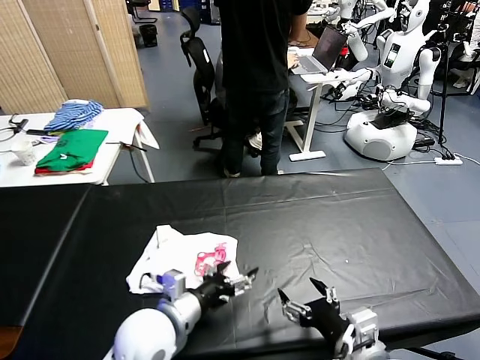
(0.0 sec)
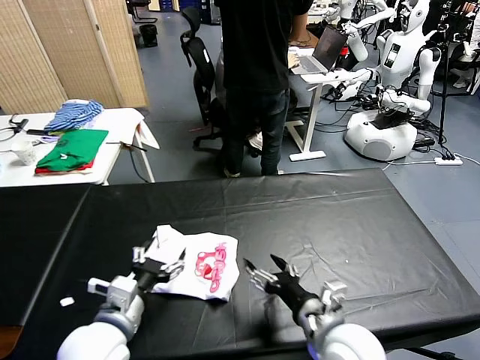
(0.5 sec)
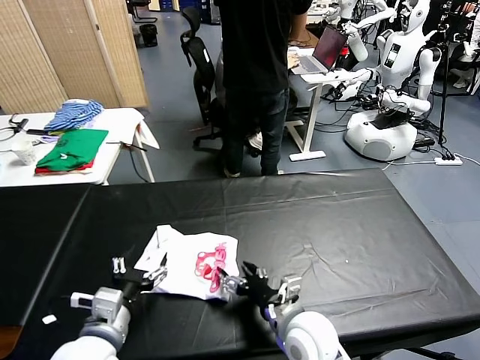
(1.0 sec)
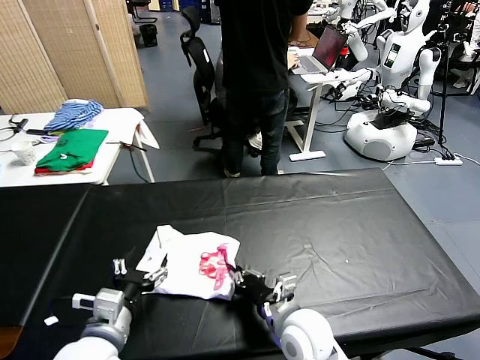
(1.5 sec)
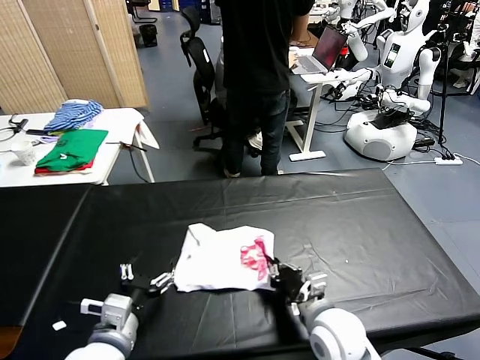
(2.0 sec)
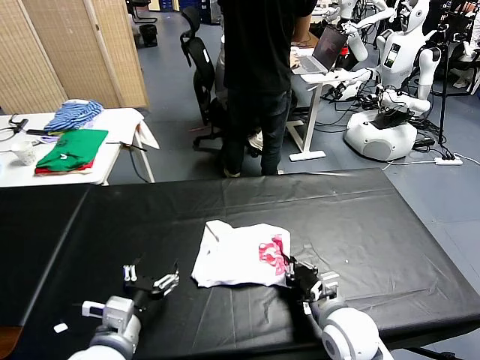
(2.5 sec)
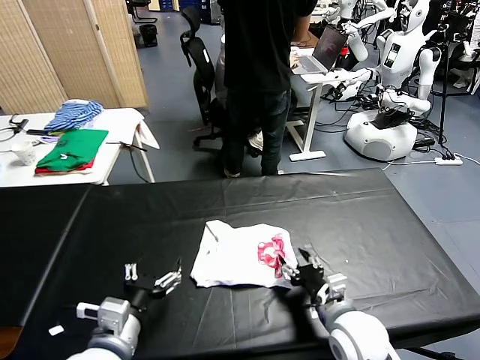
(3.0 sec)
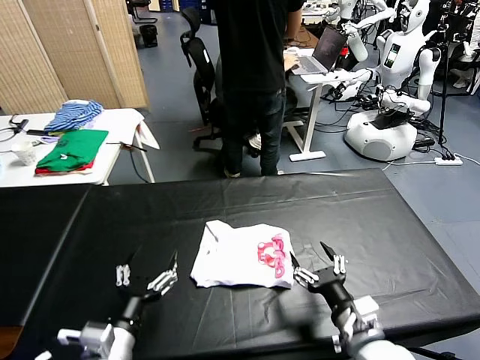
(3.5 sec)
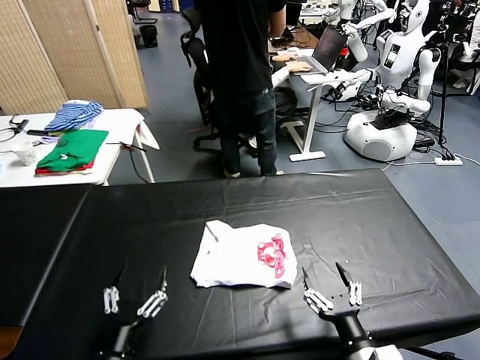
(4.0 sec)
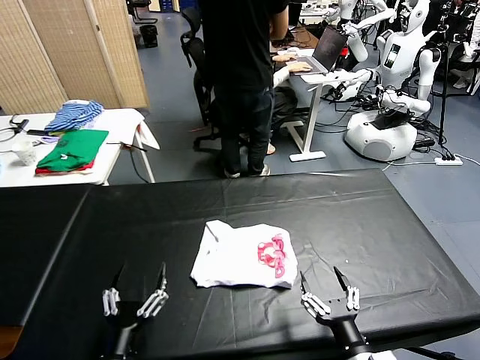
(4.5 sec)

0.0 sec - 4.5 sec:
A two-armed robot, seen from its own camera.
Task of the whole recording: fold and organize the clothes.
Step, 0.5 sec - 3.0 sec: Drag the clothes to the center of the table.
0.0 sec - 2.0 sec: The right gripper moves downward and forward, about 10 cm, and closes, while the left gripper shifts by about 5 cm.
2.0 sec - 4.5 sec: The left gripper heads backward and downward, covering approximately 10 cm; the right gripper shifts some 15 cm backward, and opens its fingers.
